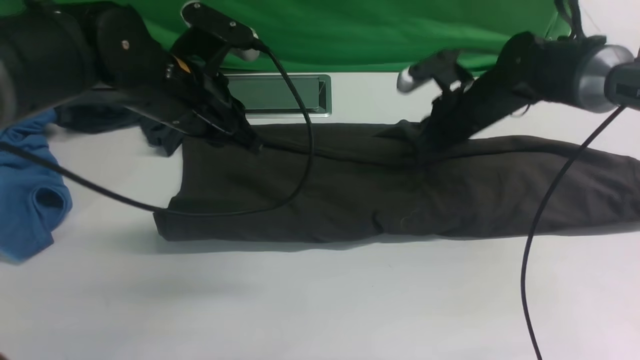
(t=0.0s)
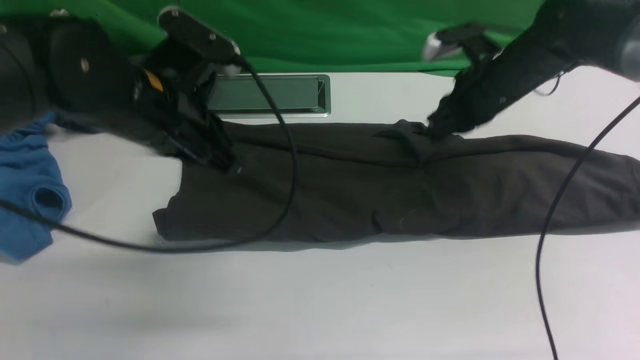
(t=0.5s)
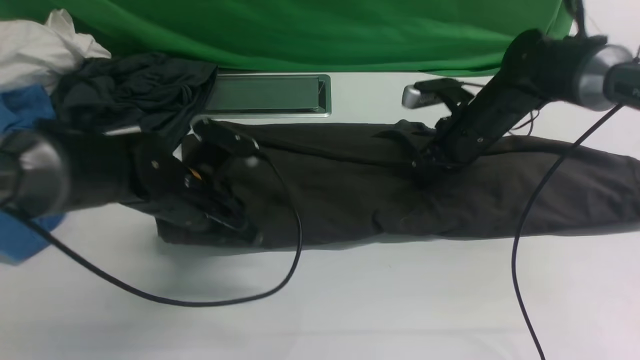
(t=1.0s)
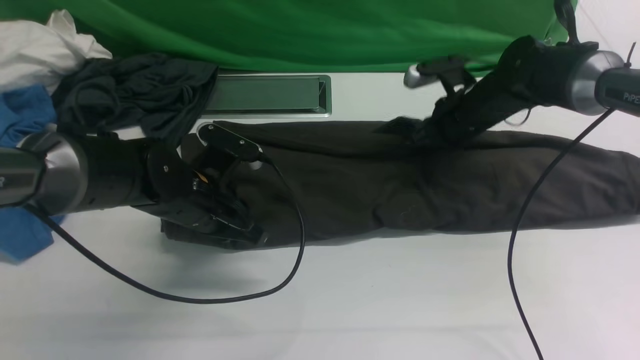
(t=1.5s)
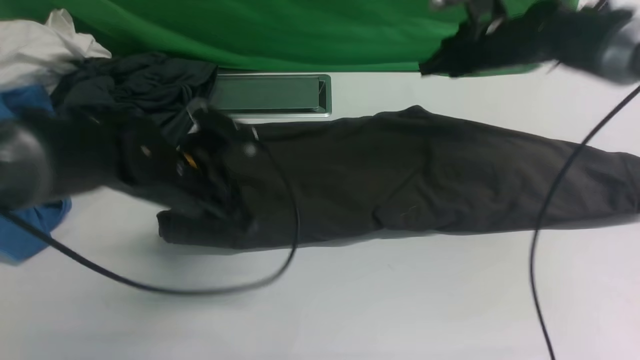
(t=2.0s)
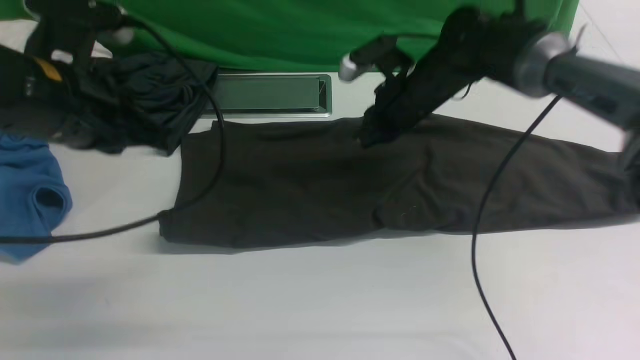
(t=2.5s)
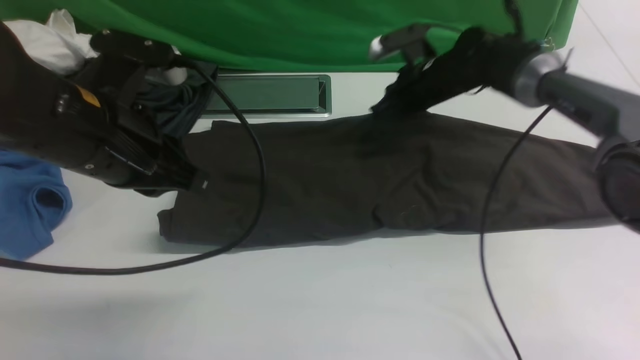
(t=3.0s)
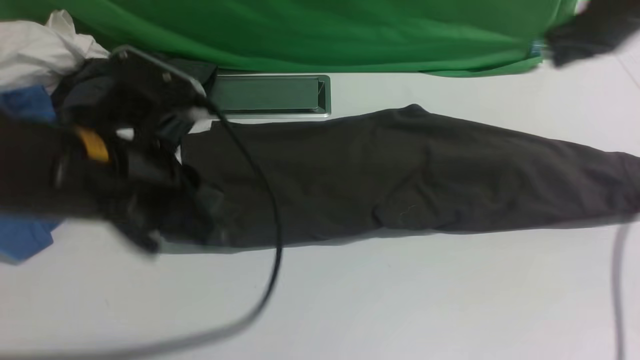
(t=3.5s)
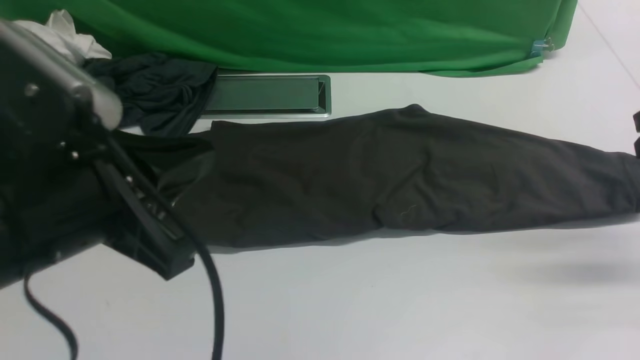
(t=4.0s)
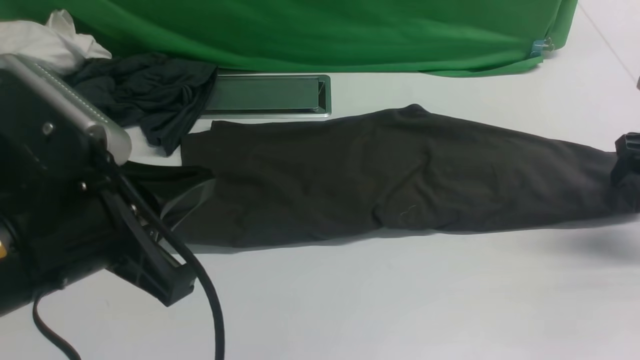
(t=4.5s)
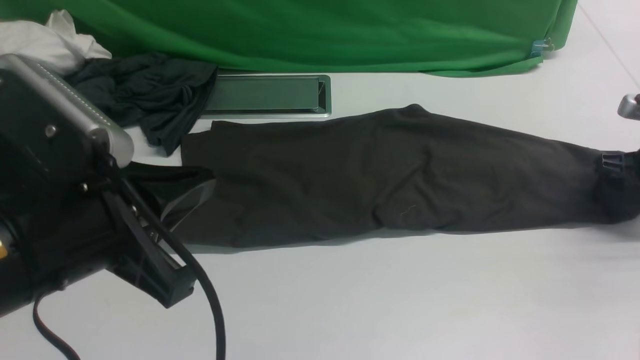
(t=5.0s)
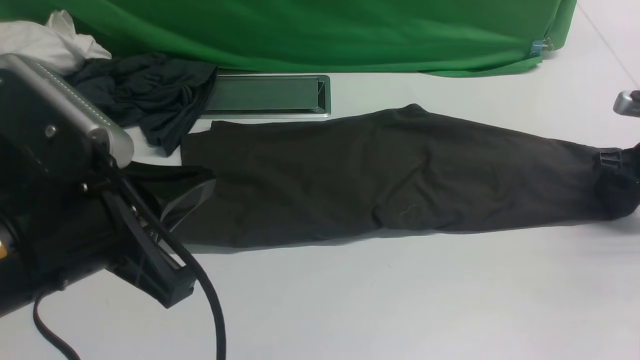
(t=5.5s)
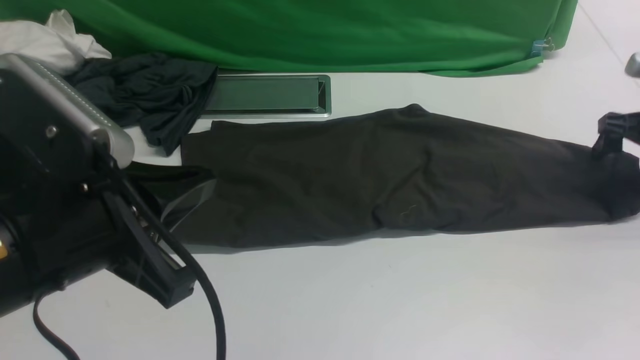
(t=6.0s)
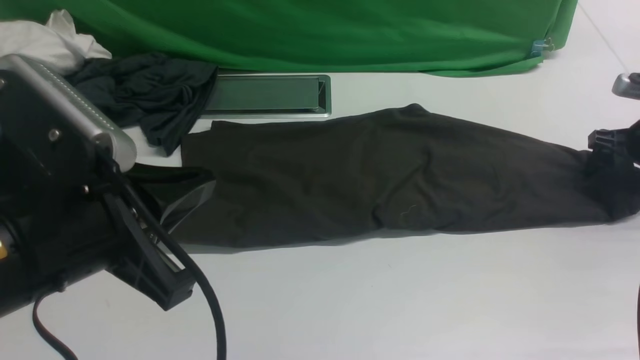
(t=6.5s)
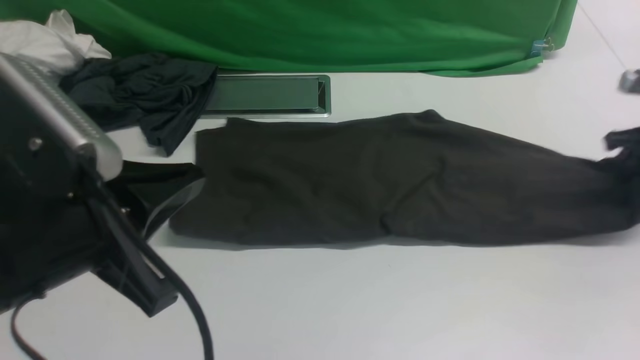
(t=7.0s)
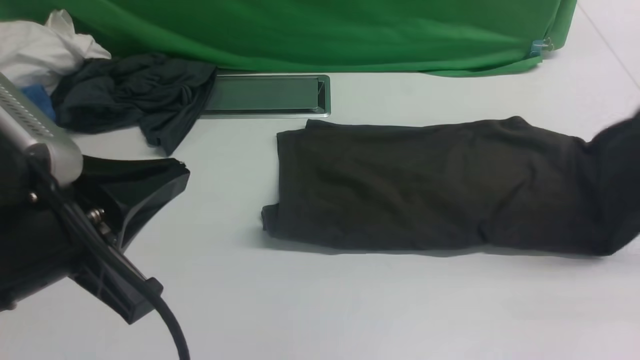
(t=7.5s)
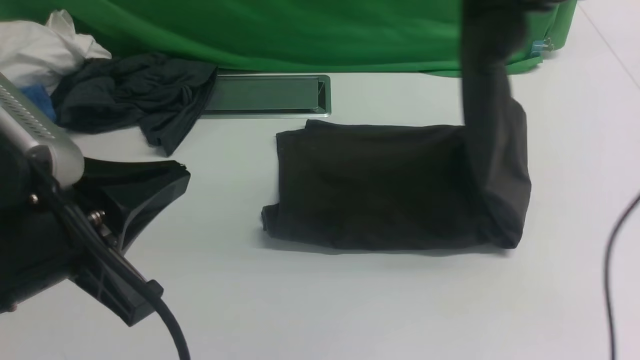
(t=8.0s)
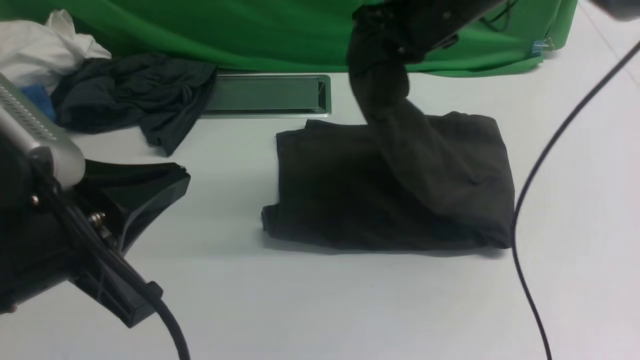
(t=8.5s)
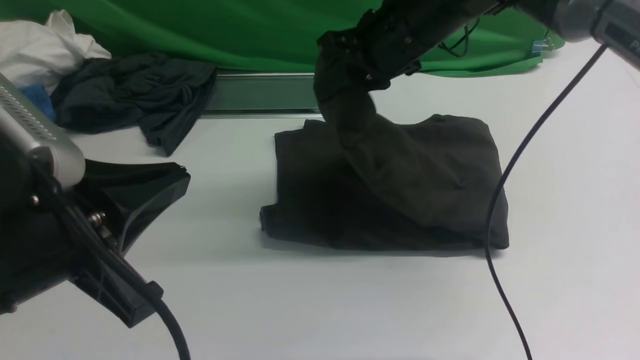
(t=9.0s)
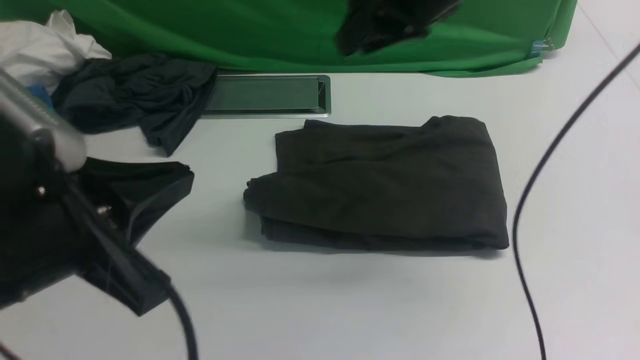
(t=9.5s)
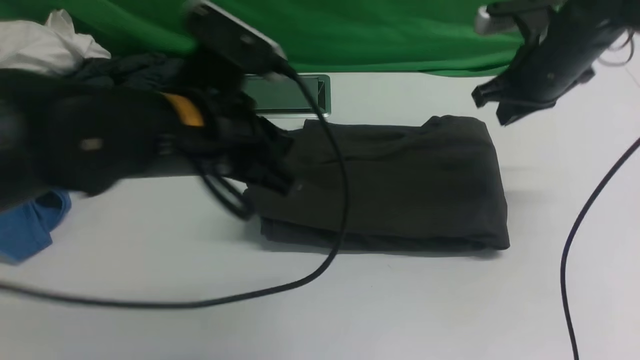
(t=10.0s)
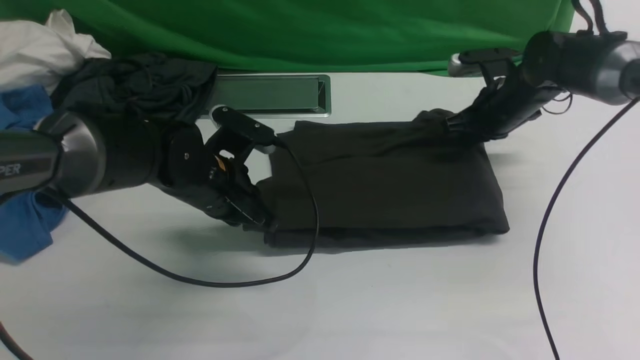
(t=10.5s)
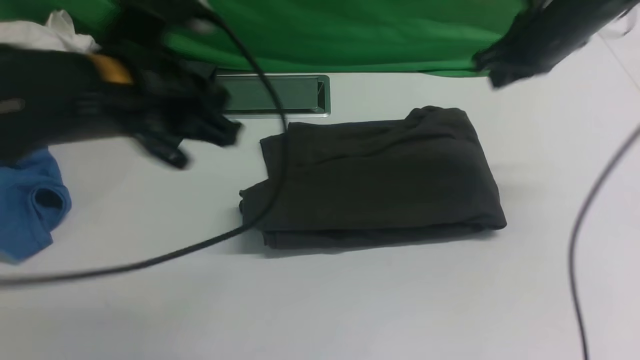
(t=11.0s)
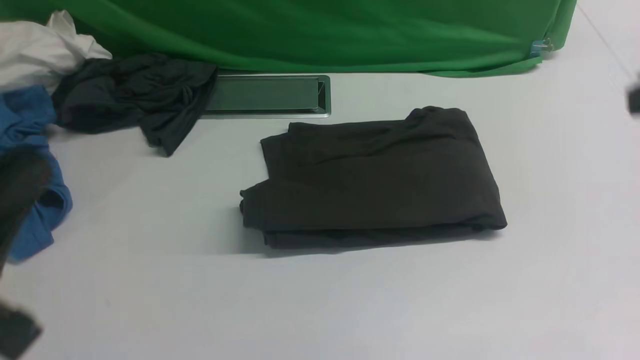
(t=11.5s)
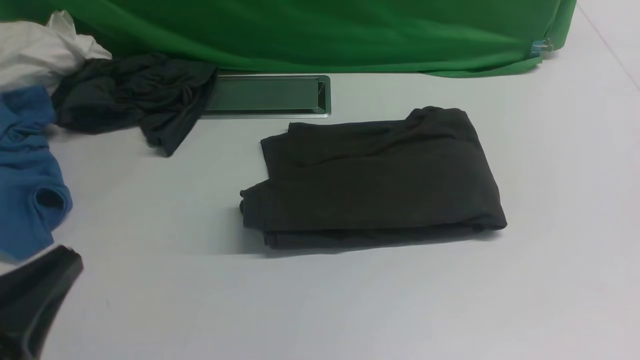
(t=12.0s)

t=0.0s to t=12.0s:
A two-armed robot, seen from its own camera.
Step, t=0.0s to t=3.0s: use both arms to drag the lower edge of the fabric forward and fold it over the upper edge.
Step, t=4.0s to t=7.0s: use the right arm to clamp the right edge of the fabric.
Step, t=7.5s to t=9.5s: use the right arm to drag the right edge of the fabric to the left and folds it over the left edge.
t=0.0s to t=2.0s: The left gripper shifts about 5 cm downward. The right gripper heads upward, covering roughly 5 cm.
t=2.0s to t=4.0s: The right gripper heads to the right and backward, covering approximately 25 cm, and opens up. The left gripper shifts approximately 20 cm backward and upward.
t=4.0s to t=6.0s: The right gripper is displaced downward and forward by some 10 cm, and opens up.
t=6.0s to t=8.0s: The right gripper heads to the left and upward, covering roughly 30 cm, and closes up.
t=8.0s to t=10.0s: The left gripper shifts some 15 cm forward and to the right. Meanwhile the right gripper is displaced downward by some 10 cm, and travels to the left and back again, about 10 cm each way.
t=10.0s to t=12.0s: The left gripper shifts some 25 cm backward and to the left. Meanwhile the right gripper is displaced backward by roughly 35 cm.

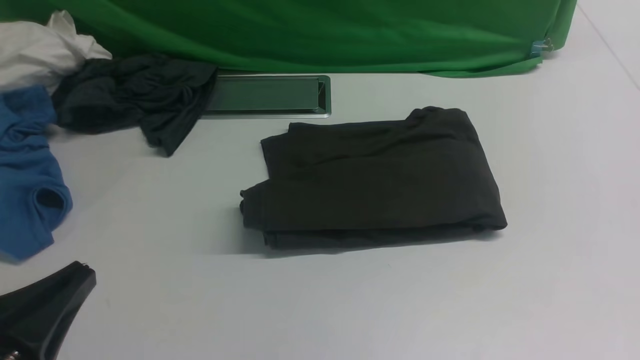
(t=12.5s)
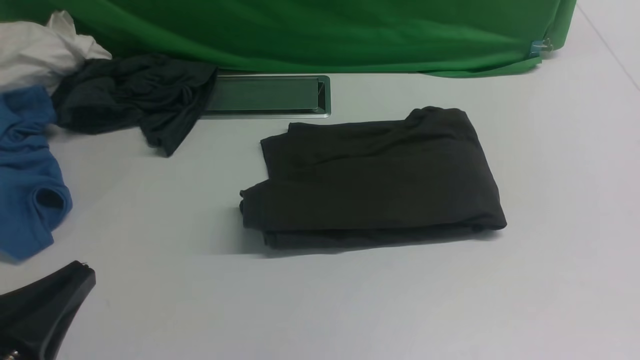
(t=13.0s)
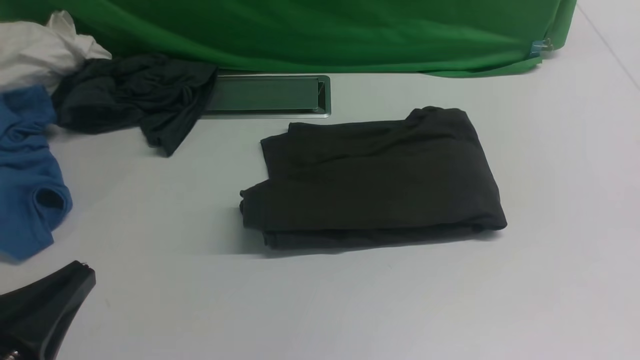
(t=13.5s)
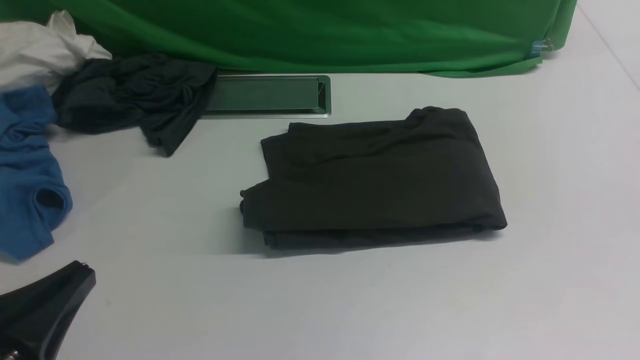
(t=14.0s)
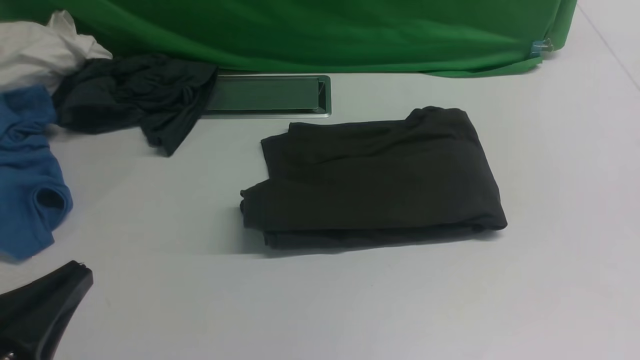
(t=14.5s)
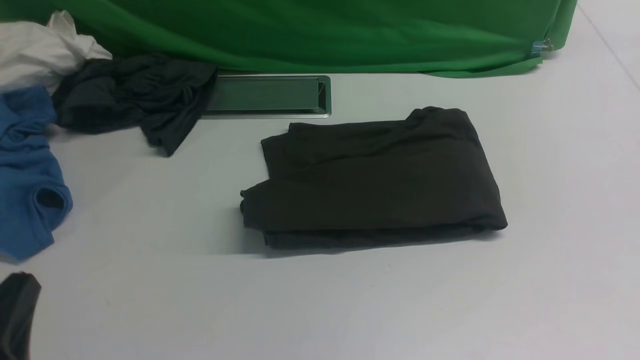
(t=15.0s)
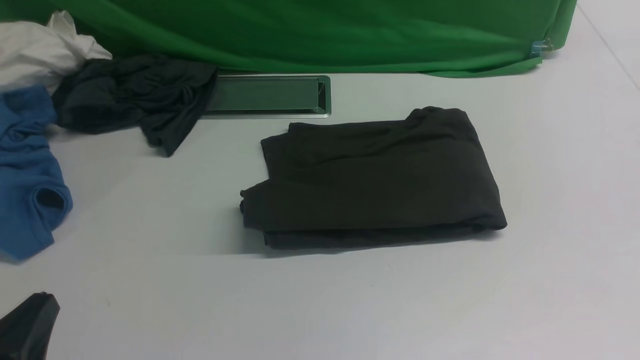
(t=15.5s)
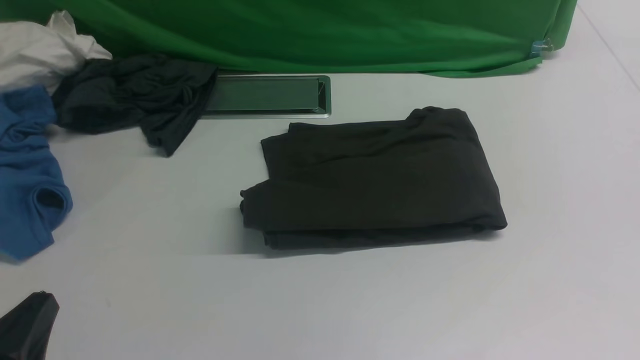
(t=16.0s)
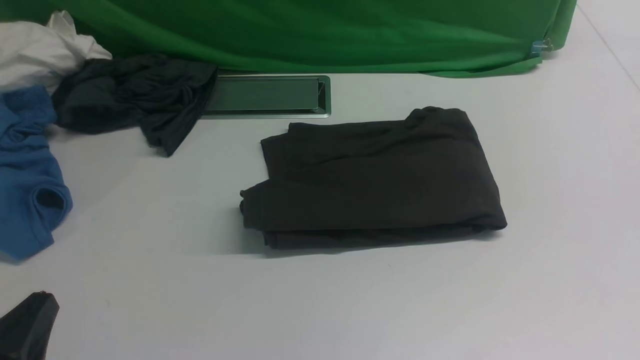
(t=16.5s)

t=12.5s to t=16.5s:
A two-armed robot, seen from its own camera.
t=14.5s to t=16.5s: The left gripper goes about 5 cm downward.
